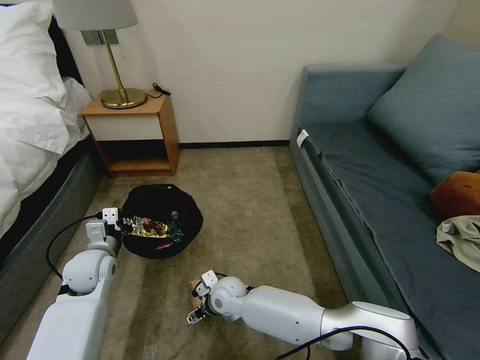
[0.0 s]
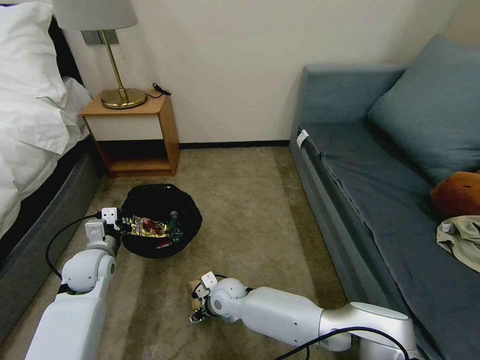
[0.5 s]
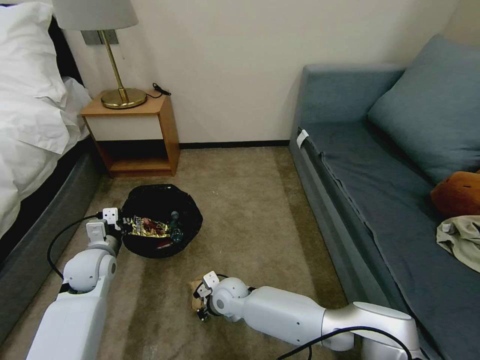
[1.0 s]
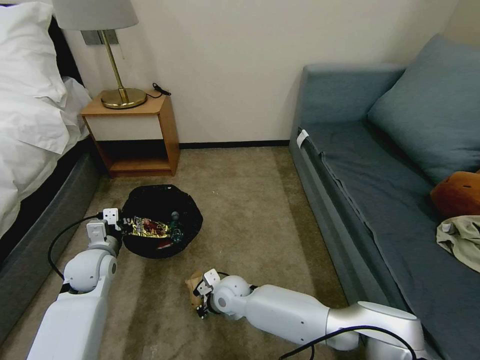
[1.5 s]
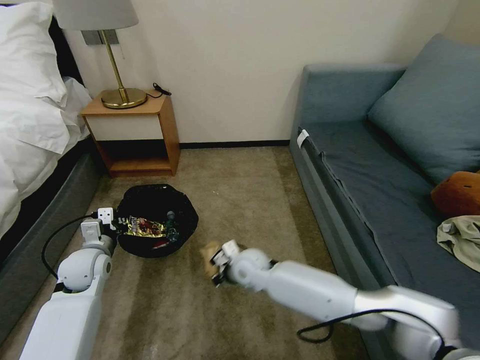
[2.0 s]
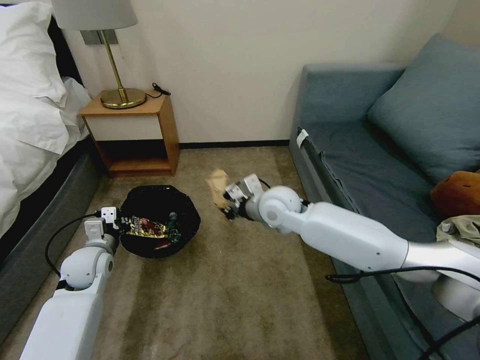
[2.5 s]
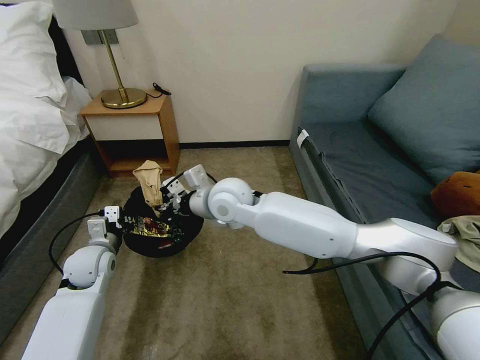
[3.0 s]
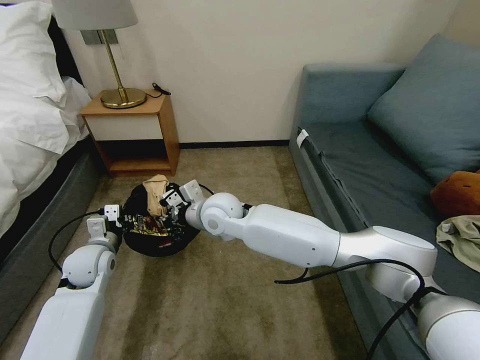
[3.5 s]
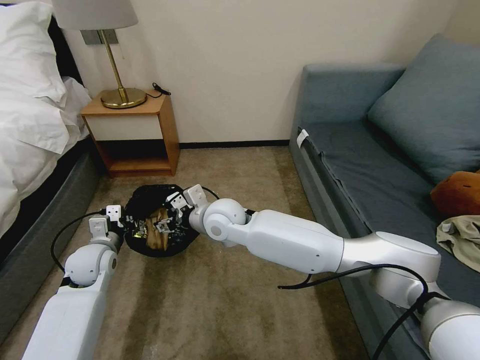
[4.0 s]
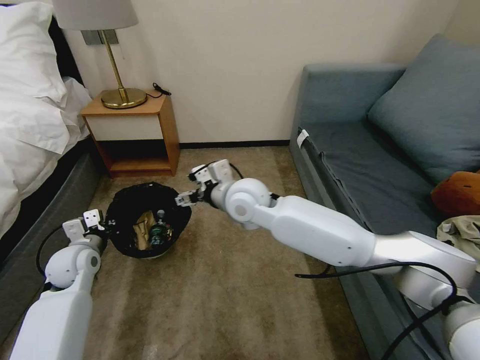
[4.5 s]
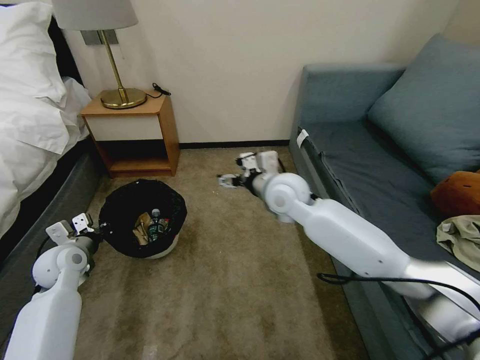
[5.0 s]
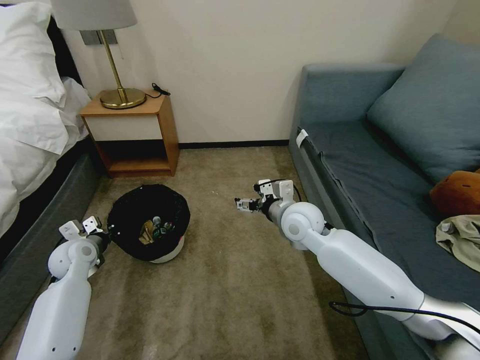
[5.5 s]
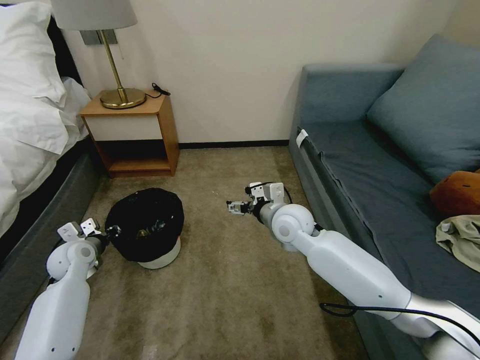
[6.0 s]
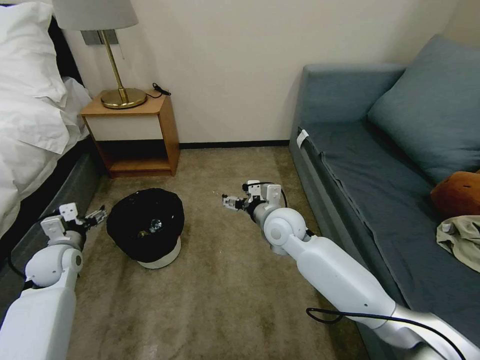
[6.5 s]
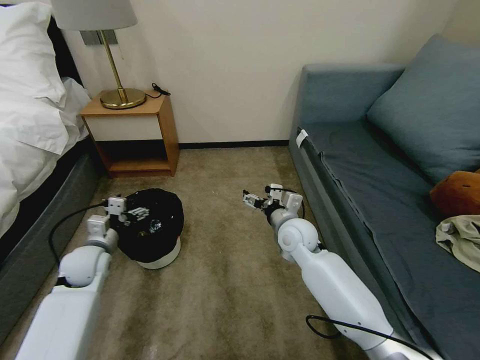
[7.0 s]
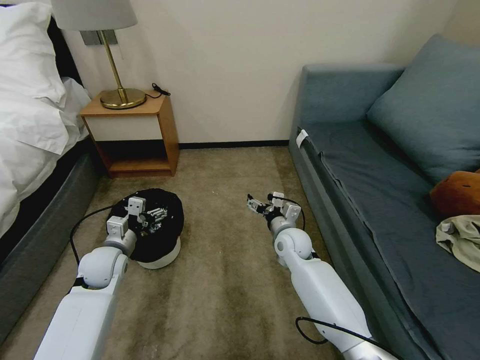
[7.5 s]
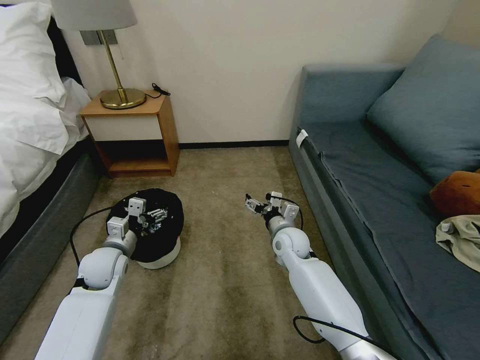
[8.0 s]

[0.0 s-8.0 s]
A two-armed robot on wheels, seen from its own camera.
Task of the whole recording: Pick up the trash bin, then pick up the garbage on the floor and place it into the trash bin.
0.0 to 2.0 s: The right gripper goes some 10 cm upward and to the right, and closes its fingers.
2.0 to 4.0 s: The right gripper moves upward, about 15 cm, and opens its fingers.
4.0 to 6.0 s: The left gripper is displaced to the left by some 5 cm, and opens up; the right gripper is displaced to the right by about 15 cm.
6.0 to 8.0 s: The right gripper shifts roughly 10 cm downward; the left gripper goes roughly 10 cm to the right, and opens up.

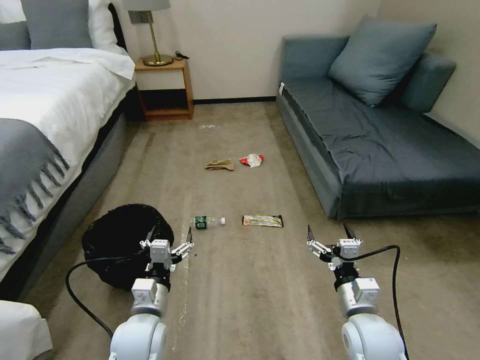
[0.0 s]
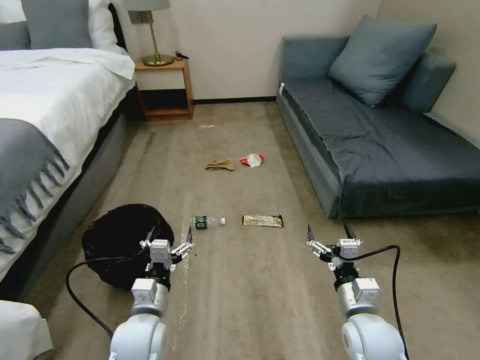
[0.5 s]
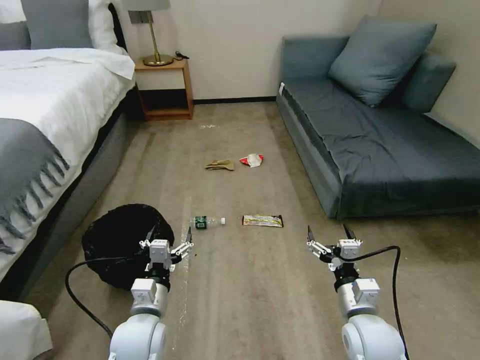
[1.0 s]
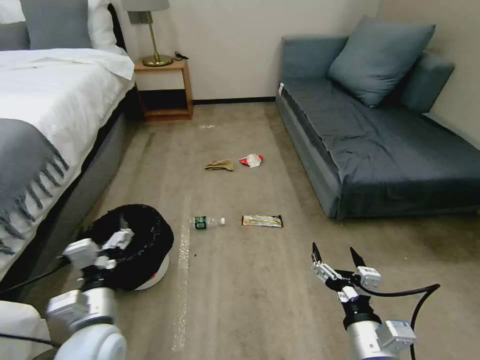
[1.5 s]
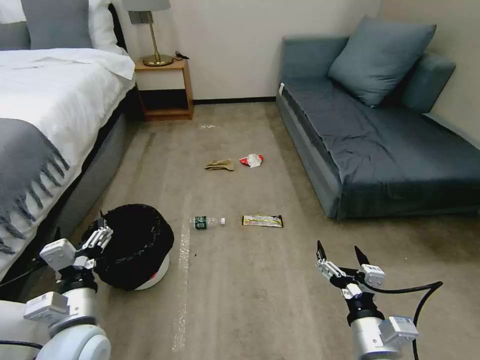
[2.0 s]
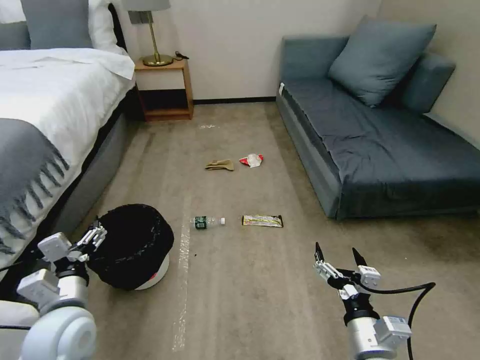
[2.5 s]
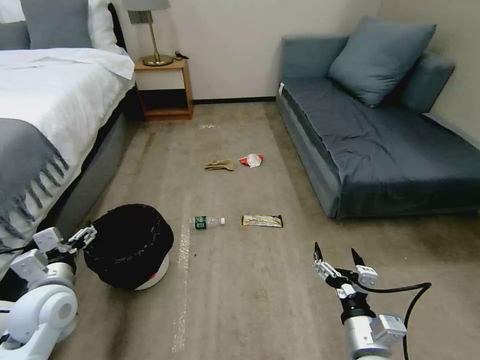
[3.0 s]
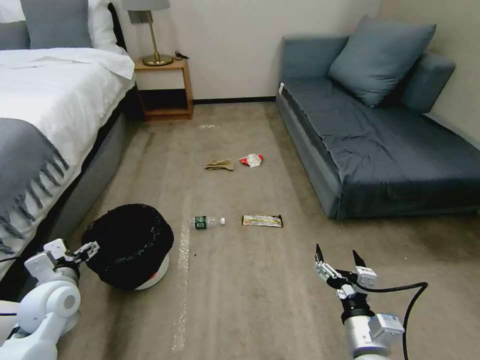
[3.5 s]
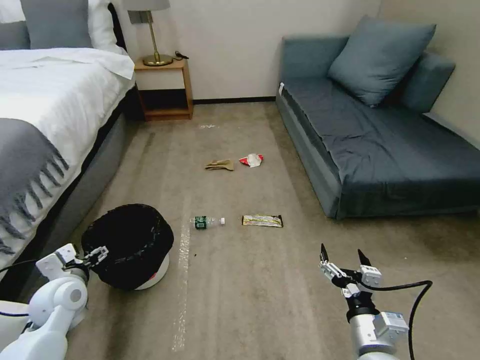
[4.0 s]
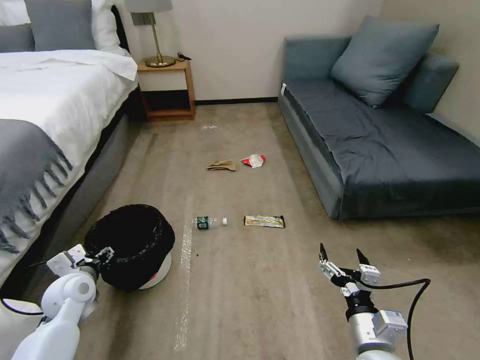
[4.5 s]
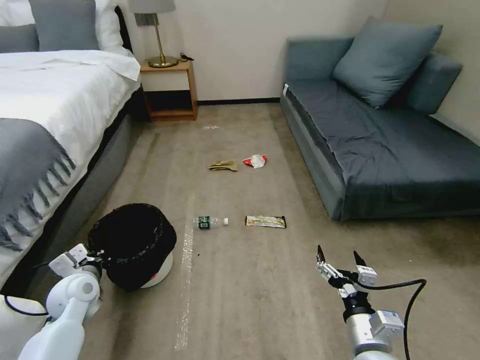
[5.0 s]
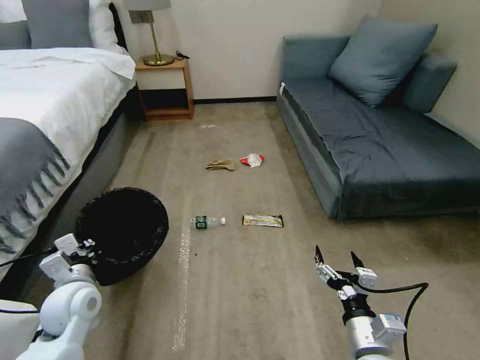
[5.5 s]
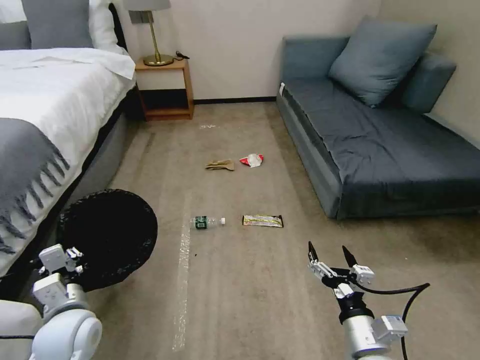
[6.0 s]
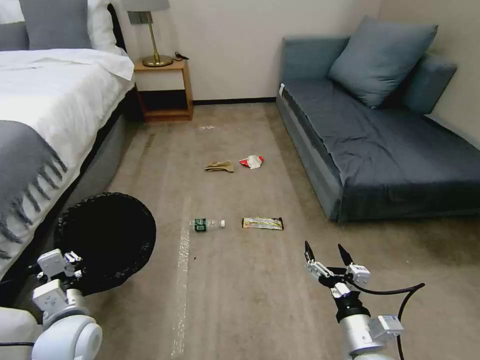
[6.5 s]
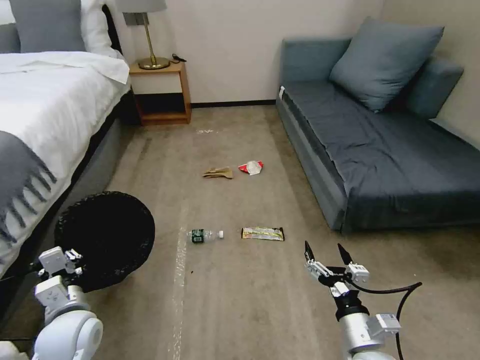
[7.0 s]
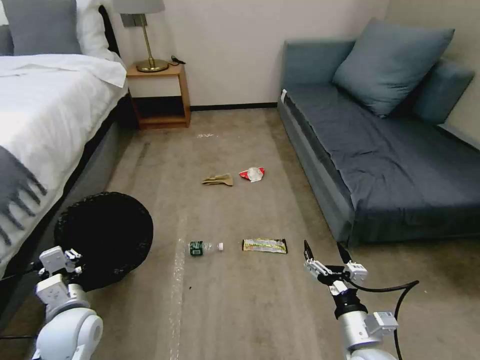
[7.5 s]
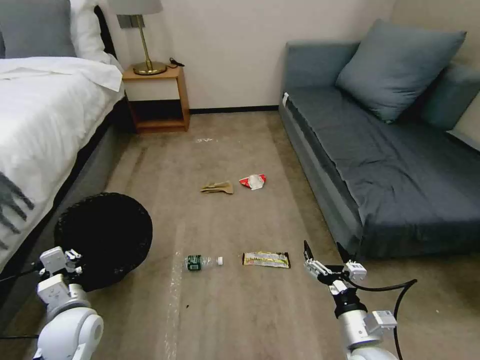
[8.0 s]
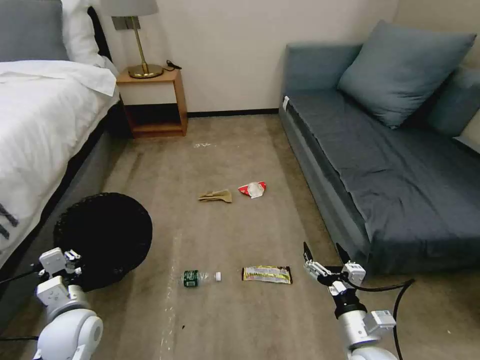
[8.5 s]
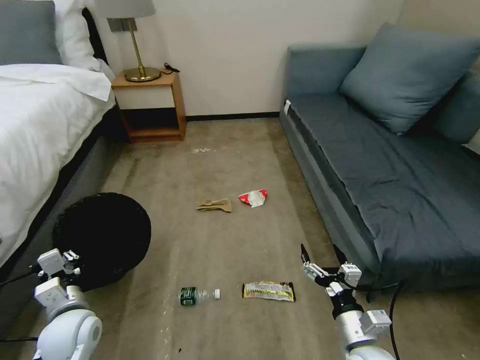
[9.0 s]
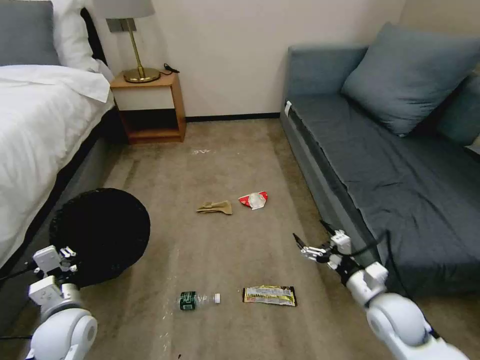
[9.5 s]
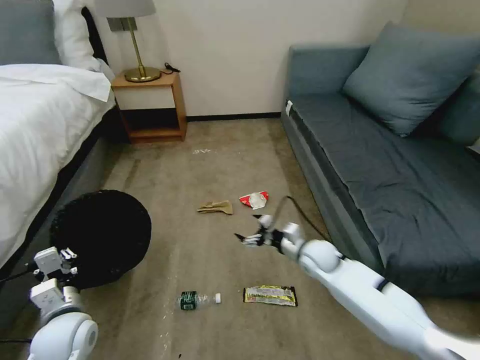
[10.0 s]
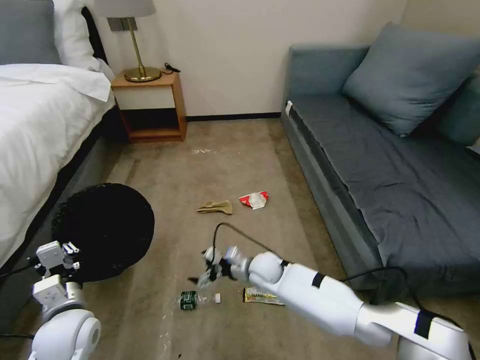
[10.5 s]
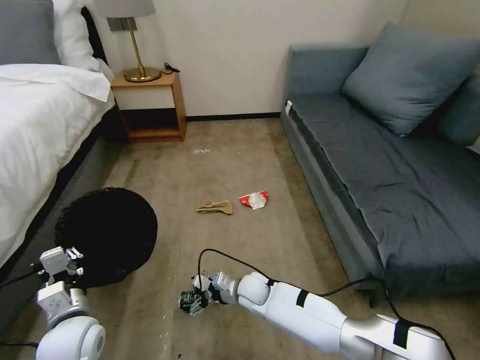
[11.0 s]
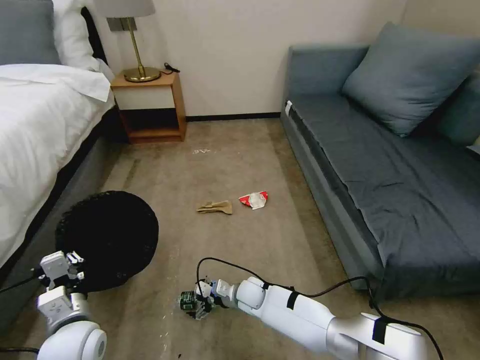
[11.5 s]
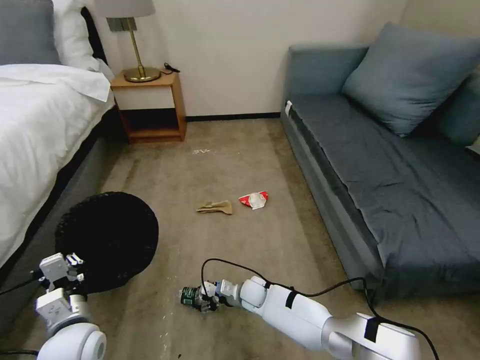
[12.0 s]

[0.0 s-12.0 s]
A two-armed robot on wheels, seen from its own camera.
Task of the whole recording: Pick up the trash bin, then pick up the garbage on the floor and place it into the trash bin.
2.0 to 4.0 s: The left gripper moves to the left and forward, about 15 cm.
4.0 to 6.0 s: The left gripper is displaced backward and to the right by roughly 10 cm, and closes.
8.0 to 10.0 s: The right gripper travels forward by roughly 25 cm.
10.0 to 12.0 s: The right gripper is displaced to the left and downward by about 20 cm, and closes up.

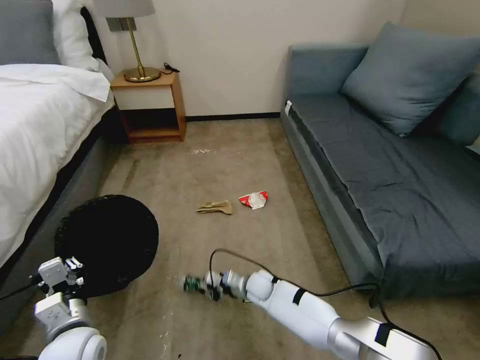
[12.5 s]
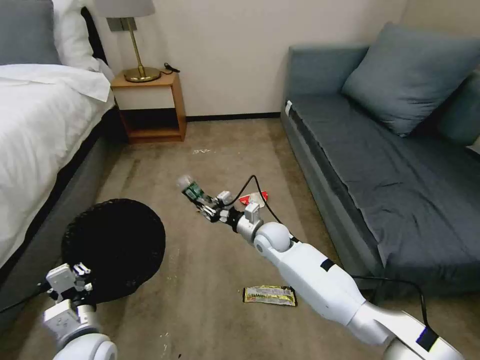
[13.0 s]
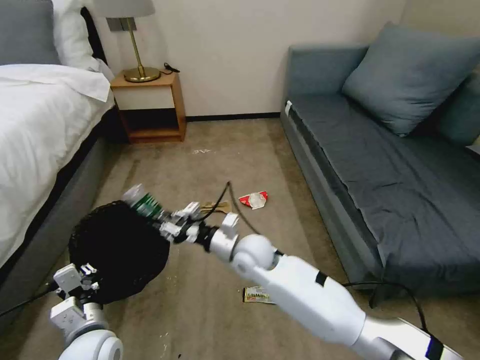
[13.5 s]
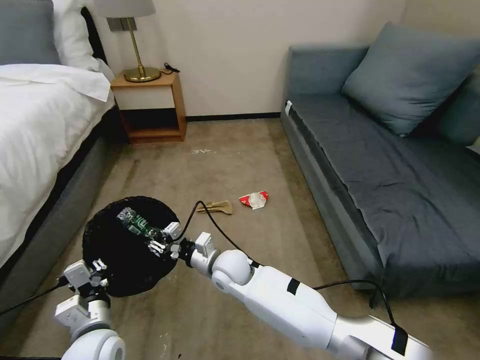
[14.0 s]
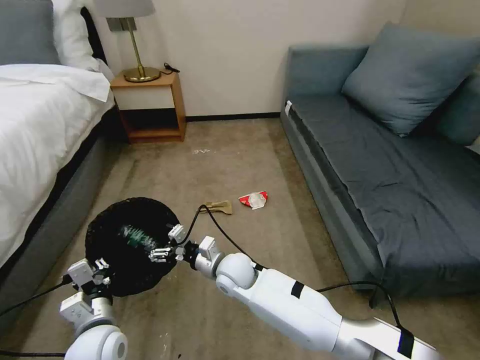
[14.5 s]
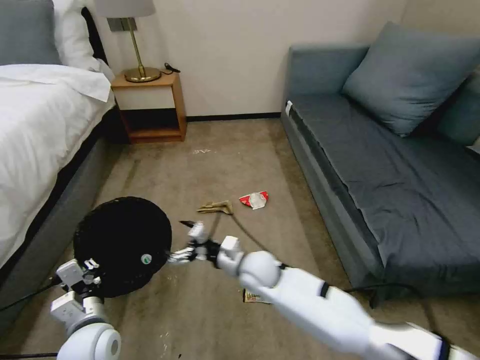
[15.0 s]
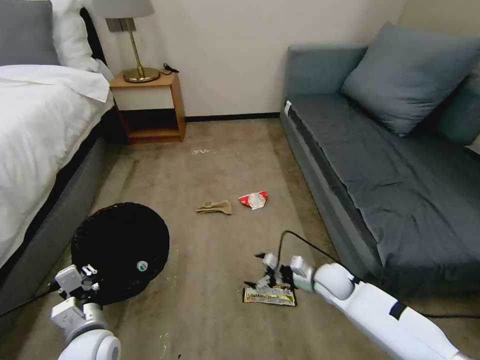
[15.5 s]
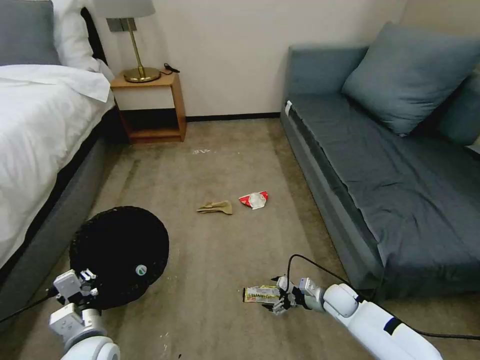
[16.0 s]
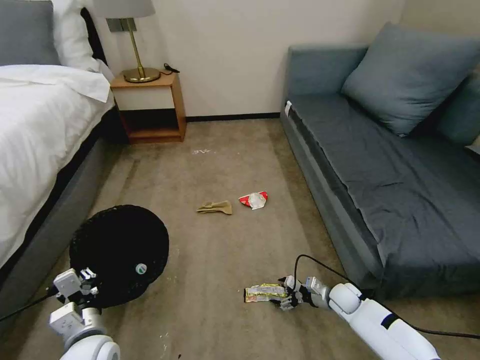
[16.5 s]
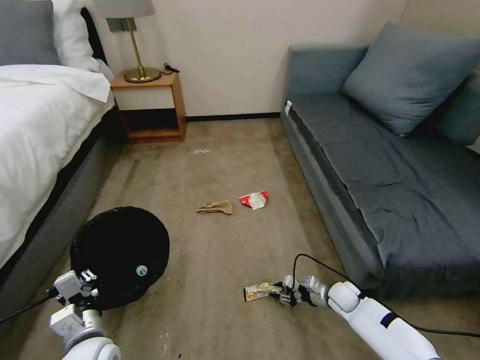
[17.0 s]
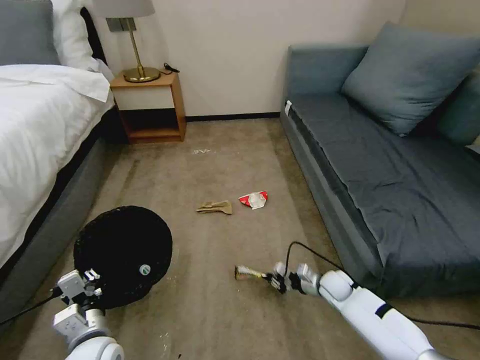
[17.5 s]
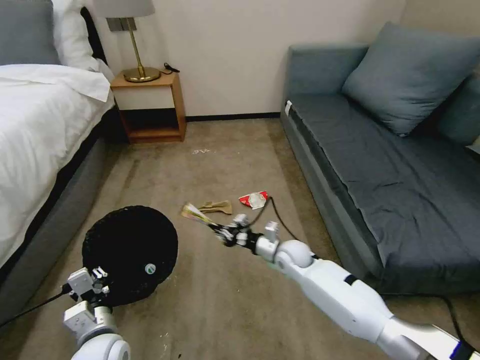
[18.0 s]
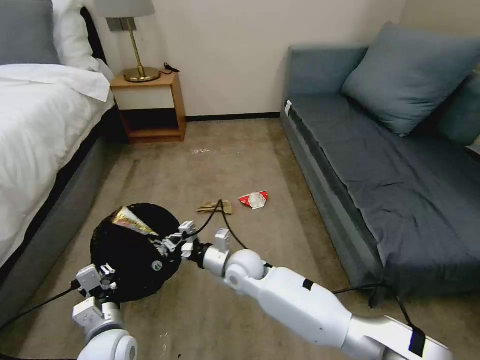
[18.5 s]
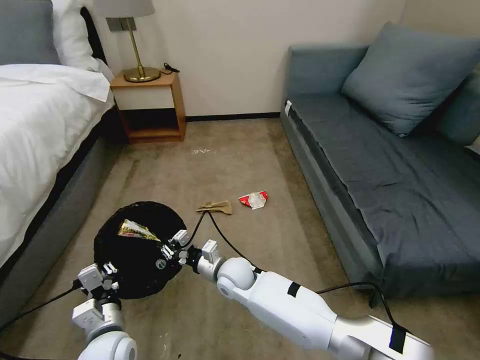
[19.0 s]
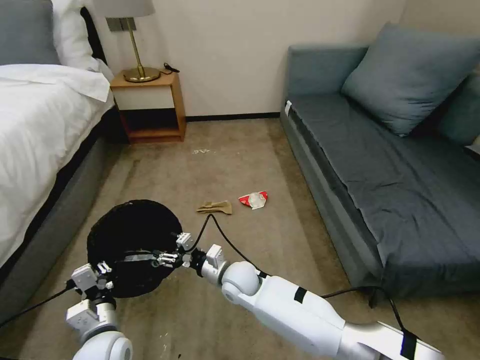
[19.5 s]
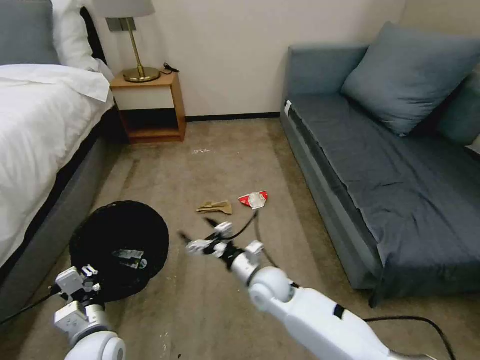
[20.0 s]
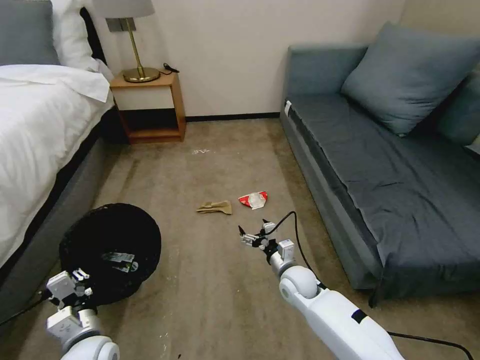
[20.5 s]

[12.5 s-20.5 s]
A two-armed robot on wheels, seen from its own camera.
Task of the whole recording: Pick up the trash bin, then pick up the garbage on the floor and place it into the trash bin.
12.5 to 14.5 s: The right gripper goes some 20 cm upward and to the left, and opens its fingers.
14.5 to 16.5 s: The right gripper moves to the right and downward, roughly 40 cm.
16.5 to 18.5 s: The right gripper goes about 35 cm to the left and upward, and closes up.
18.5 to 20.5 s: The right gripper is displaced to the right and downward by roughly 15 cm, and opens up.
